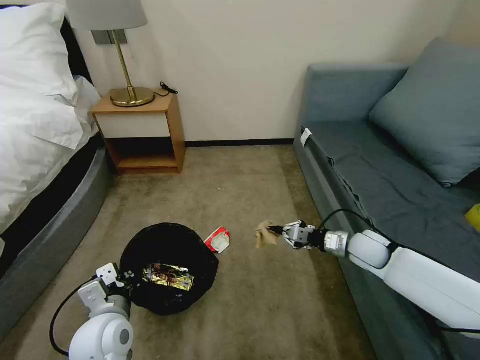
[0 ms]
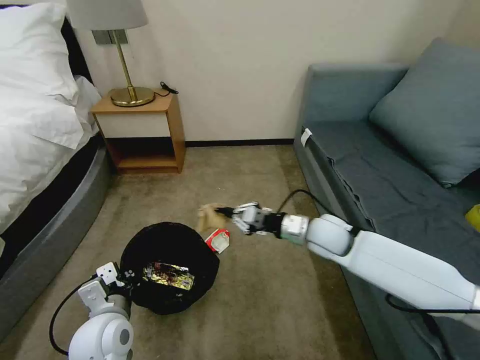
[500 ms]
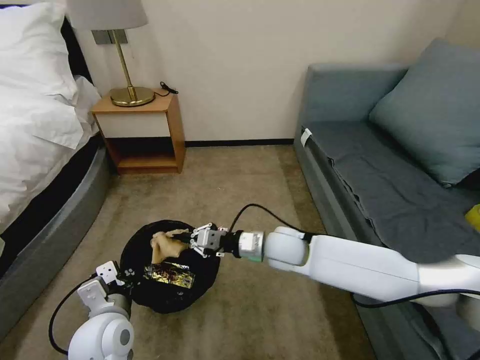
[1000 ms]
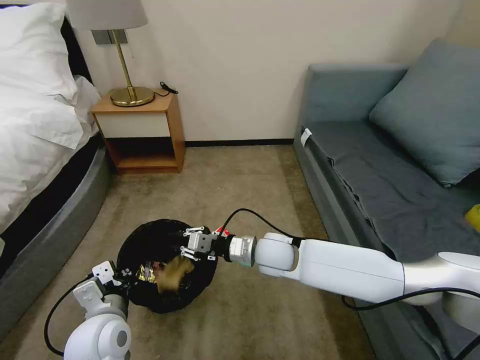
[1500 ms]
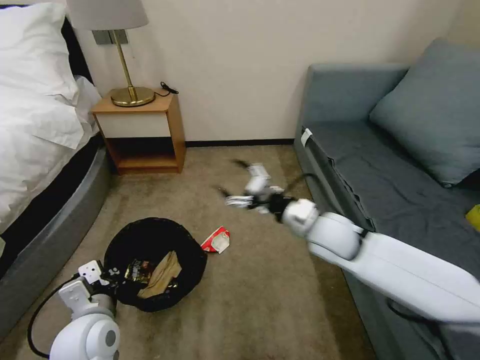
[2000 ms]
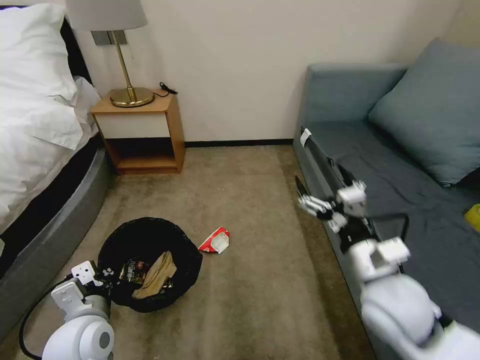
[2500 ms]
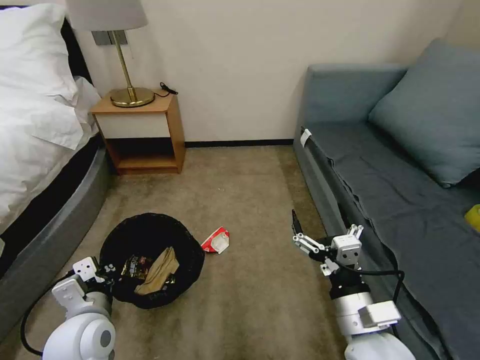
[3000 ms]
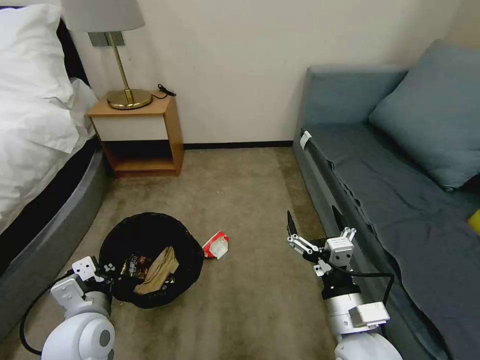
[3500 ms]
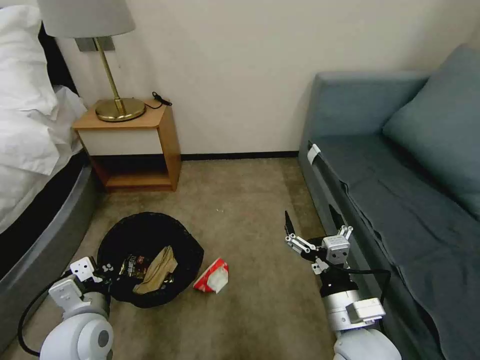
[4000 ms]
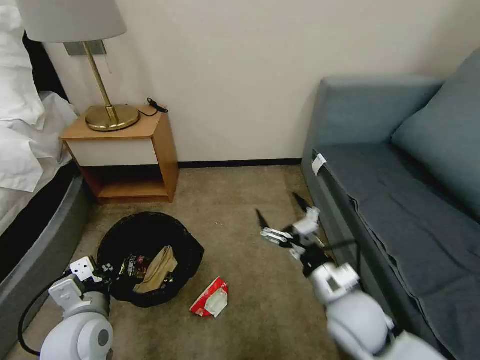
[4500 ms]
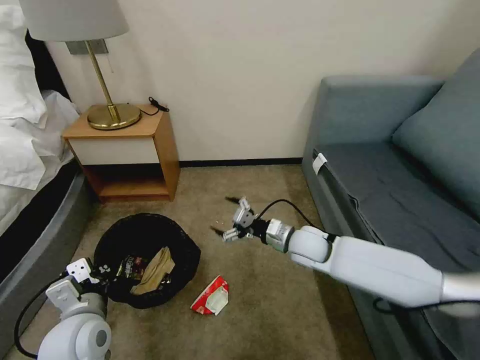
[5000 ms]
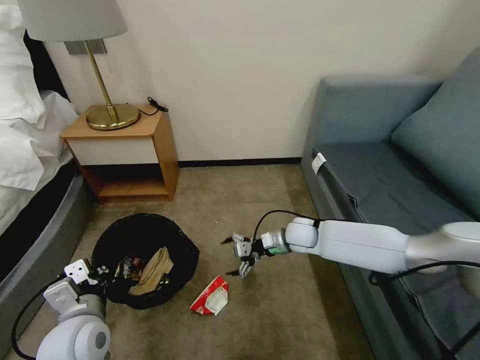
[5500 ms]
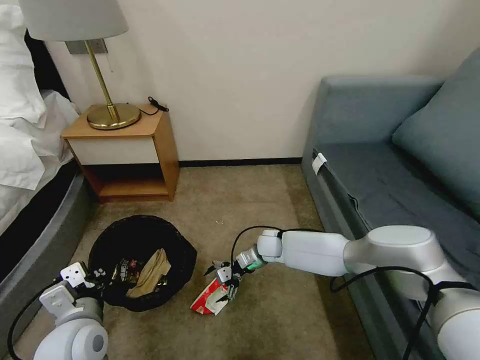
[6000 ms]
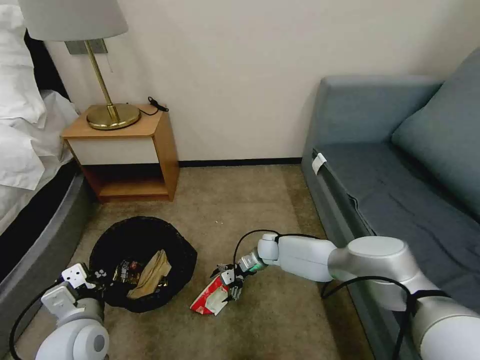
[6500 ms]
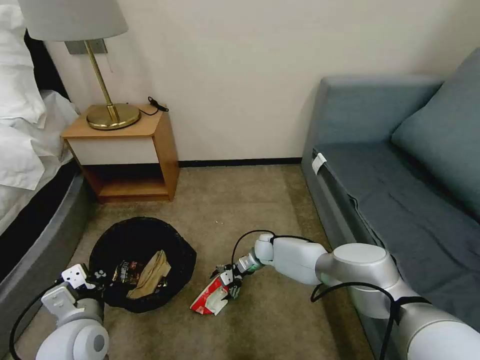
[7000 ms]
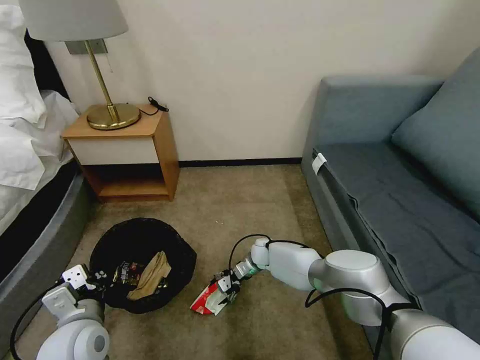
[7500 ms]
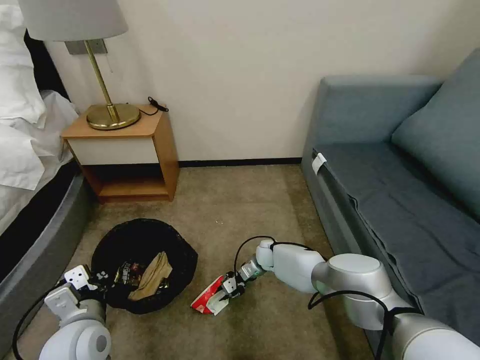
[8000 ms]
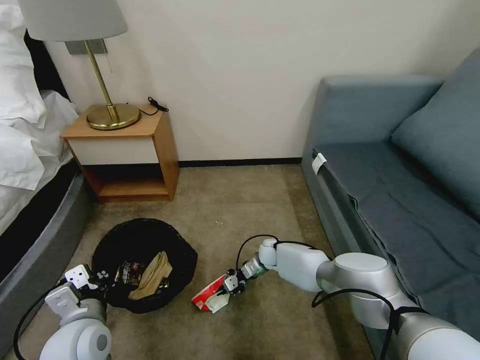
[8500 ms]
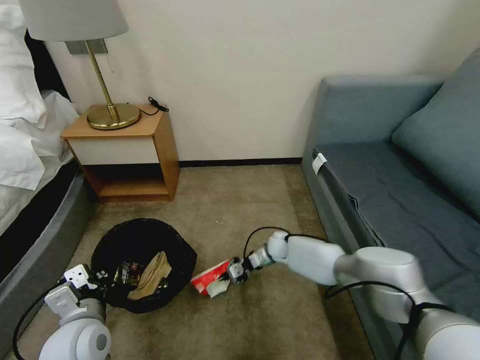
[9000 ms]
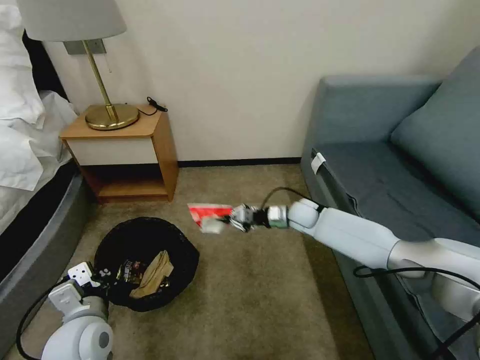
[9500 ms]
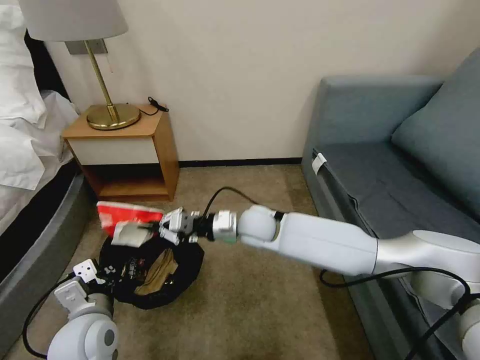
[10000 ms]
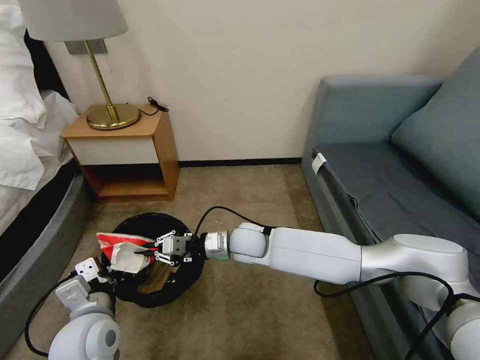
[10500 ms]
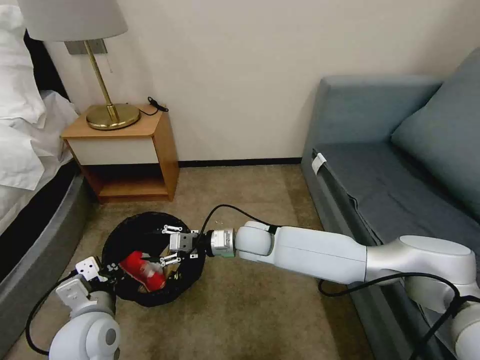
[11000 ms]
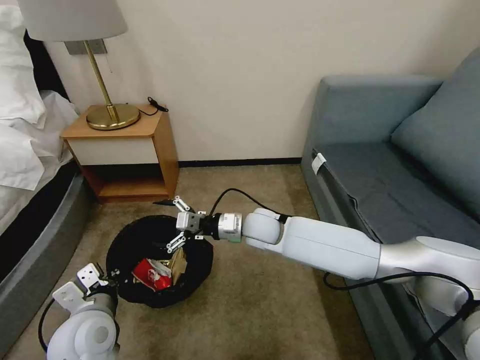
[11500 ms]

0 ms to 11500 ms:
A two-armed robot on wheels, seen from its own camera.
Task of the whole recording: Pick up the trash bin, then pick up the garbage on the floor and place it into the trash bin.
0 ms to 2000 ms: The right gripper is displaced to the left and upward by some 20 cm, and opens.
2000 ms to 4000 ms: The right gripper goes approximately 20 cm backward.
4000 ms to 6000 ms: The right gripper travels forward and downward by roughly 35 cm.
6000 ms to 7500 ms: The right gripper goes roughly 5 cm downward.
7500 ms to 9500 ms: The right gripper goes about 20 cm upward and to the right, and closes its fingers.
9500 ms to 11500 ms: The right gripper is displaced to the left, backward and upward by roughly 20 cm, and opens up.

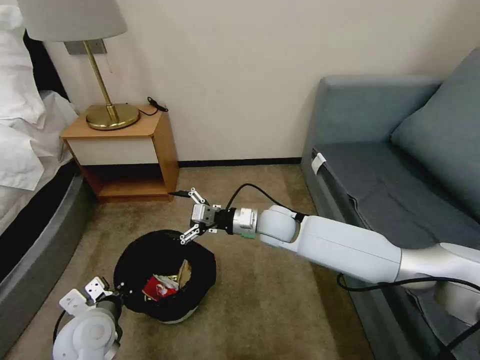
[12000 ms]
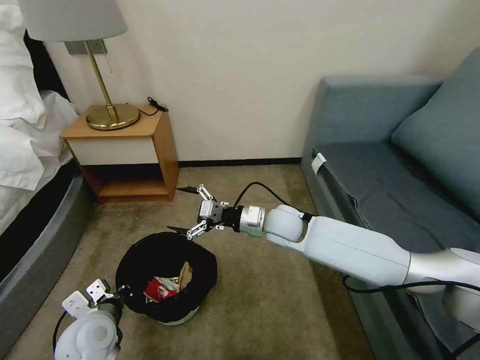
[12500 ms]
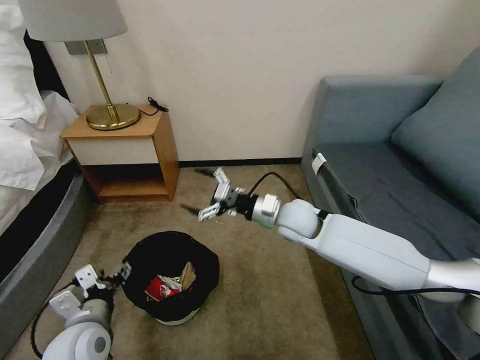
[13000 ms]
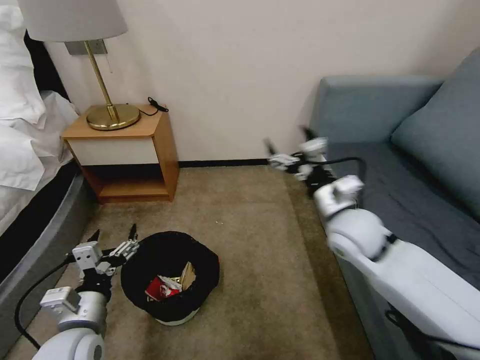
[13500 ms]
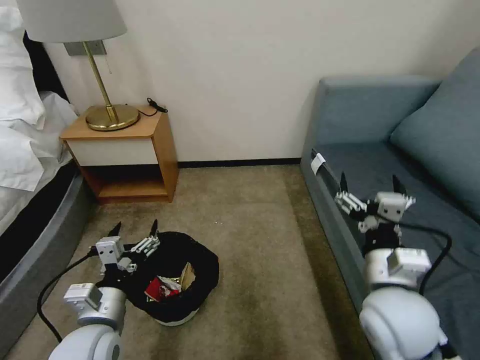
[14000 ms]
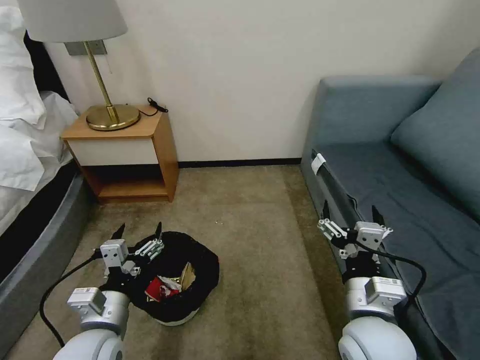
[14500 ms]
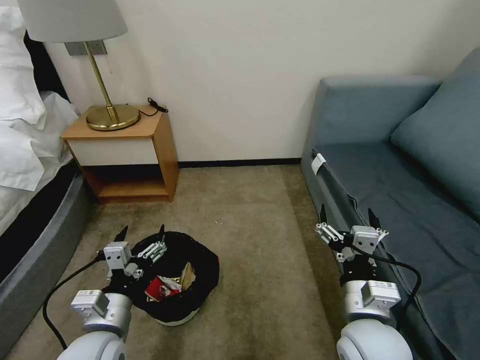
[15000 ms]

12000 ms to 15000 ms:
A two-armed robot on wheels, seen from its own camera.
Task of the whole recording: Pick up the trash bin, then pick up the garbage on the floor and place it into the trash bin.
12000 ms to 13500 ms: The left gripper shifts by roughly 5 cm, and opens, while the right gripper travels to the right, upward and backward by some 15 cm.
13500 ms to 15000 ms: The right gripper travels backward by some 20 cm.

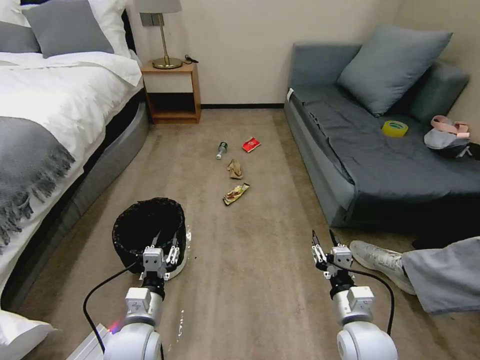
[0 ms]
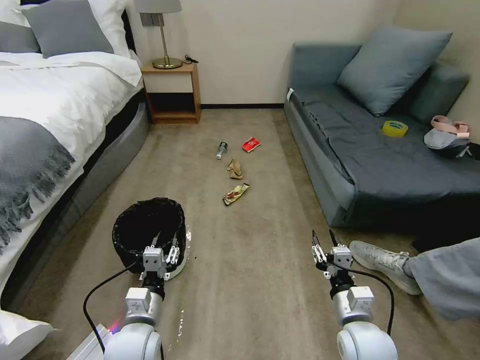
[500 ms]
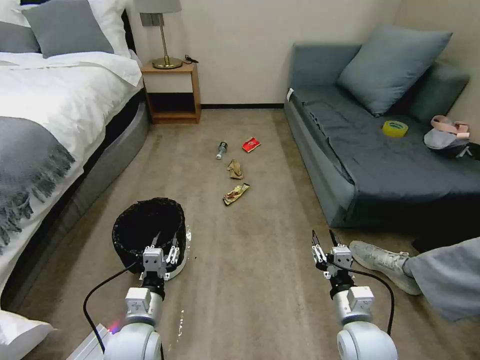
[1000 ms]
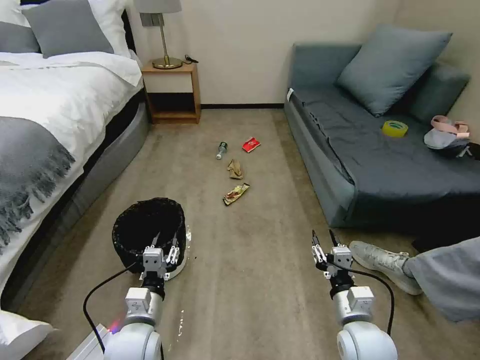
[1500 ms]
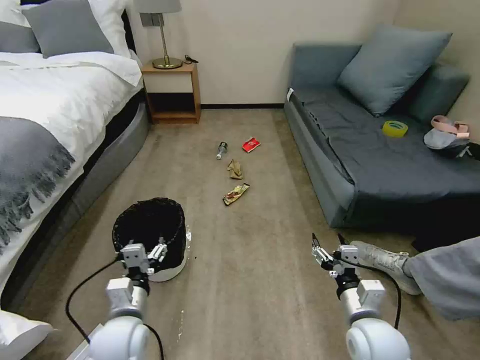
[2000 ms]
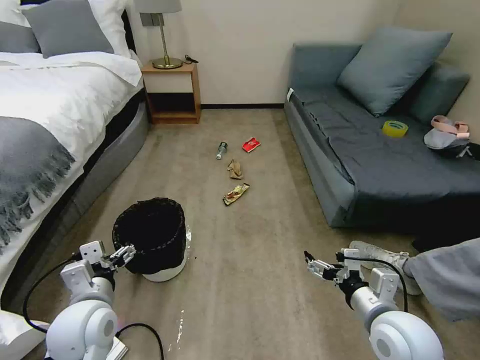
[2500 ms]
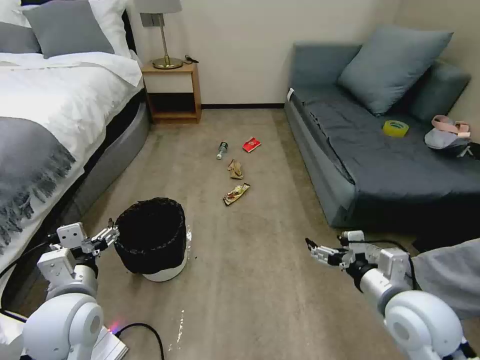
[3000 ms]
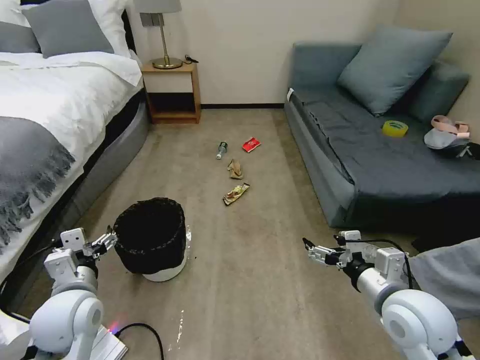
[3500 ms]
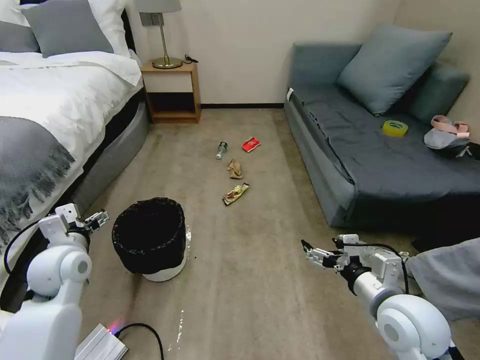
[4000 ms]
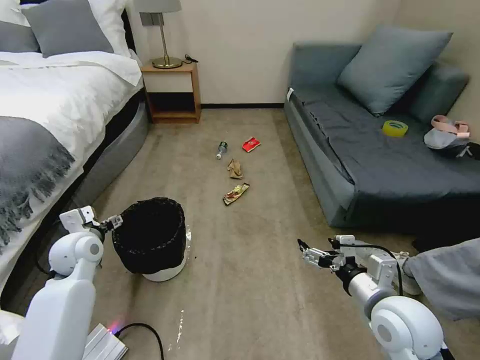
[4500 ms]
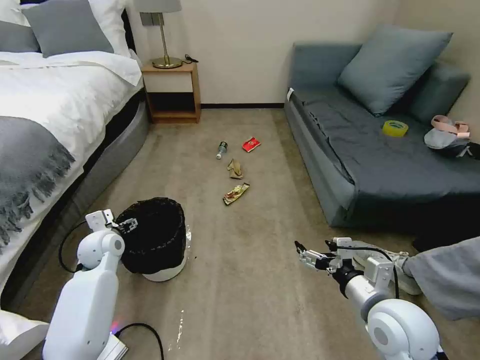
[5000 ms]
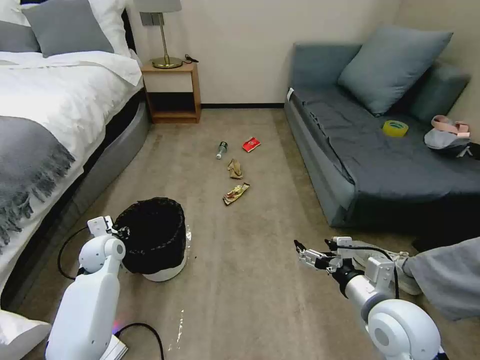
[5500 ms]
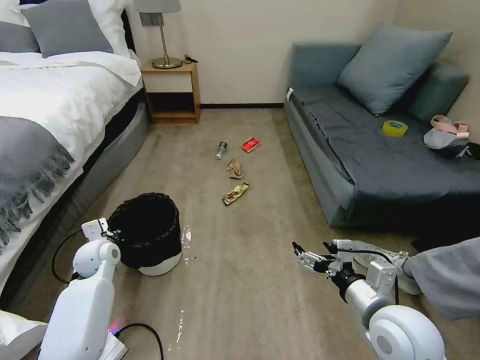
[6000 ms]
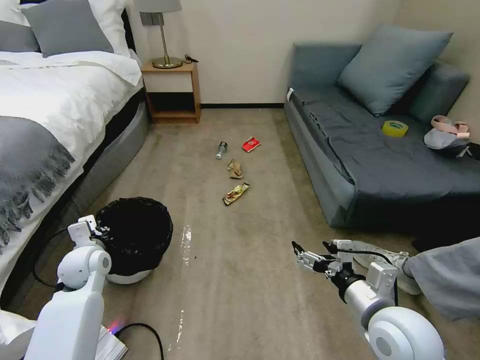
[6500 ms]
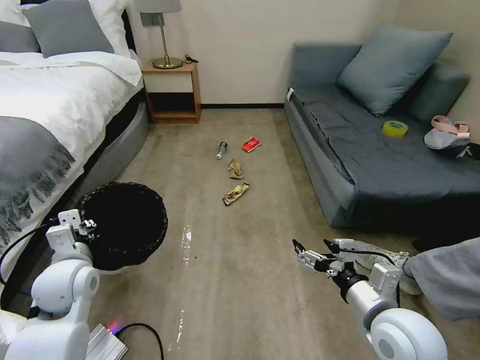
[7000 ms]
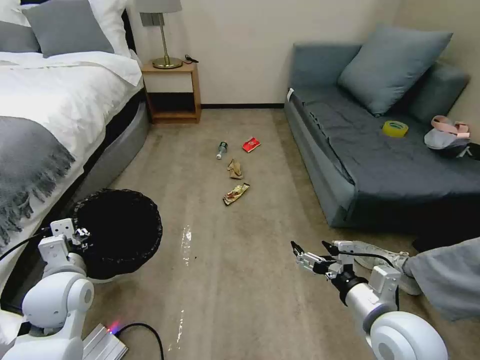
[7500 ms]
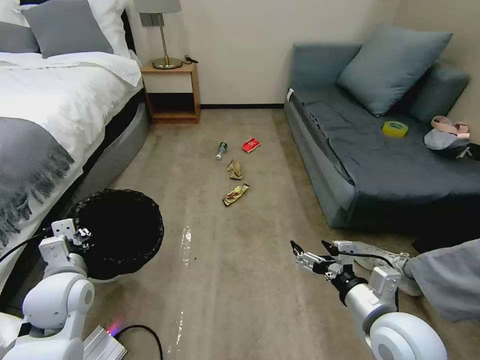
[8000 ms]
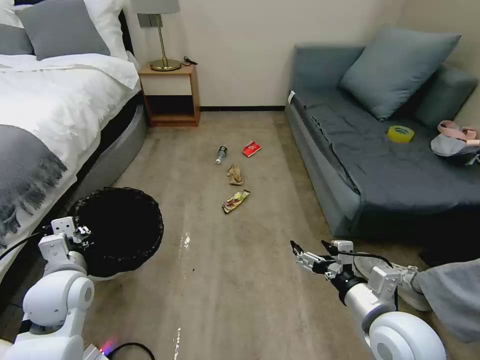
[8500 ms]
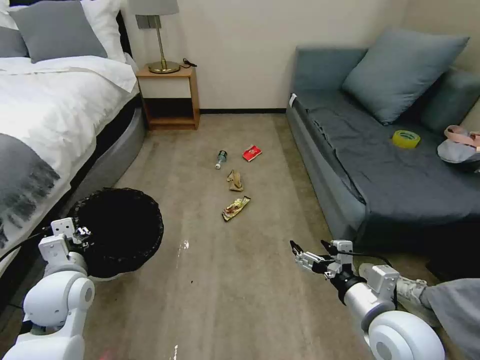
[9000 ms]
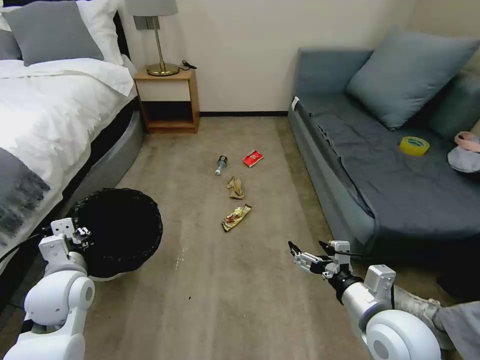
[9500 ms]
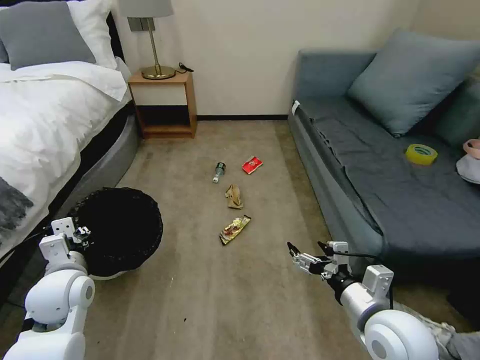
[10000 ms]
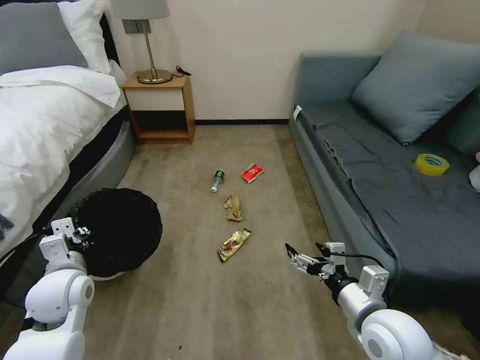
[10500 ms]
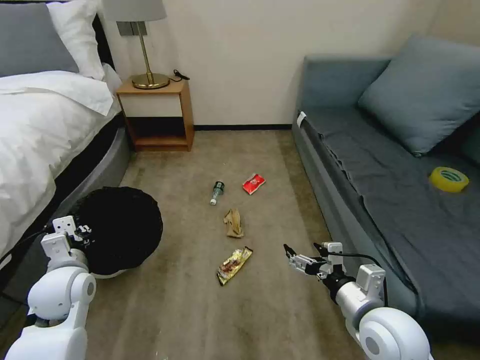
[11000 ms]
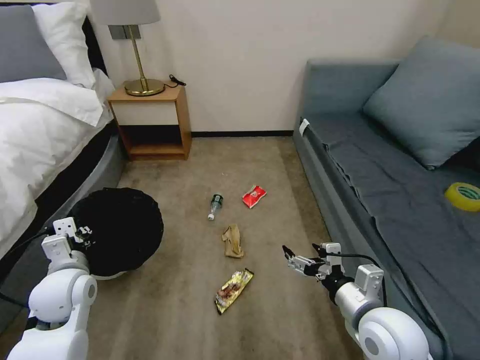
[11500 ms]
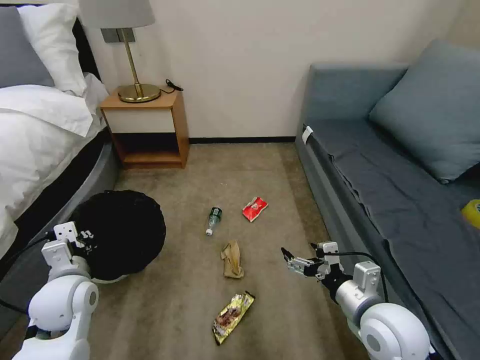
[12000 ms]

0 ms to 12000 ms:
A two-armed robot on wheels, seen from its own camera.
Task of the whole recording: Pick up the trash bin, then pick up the garbage on the floor and place it into the trash bin.
2000 ms to 4000 ms: The left gripper heads to the left, forward and upward, covering about 20 cm; the right gripper travels upward by approximately 10 cm.
4000 ms to 6000 ms: The left gripper moves downward and forward, roughly 15 cm, and closes its fingers.
6000 ms to 8000 ms: The left gripper travels backward and upward by some 15 cm.
